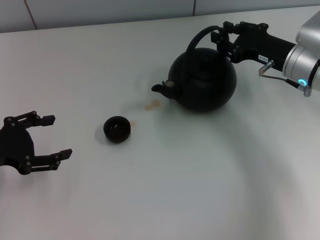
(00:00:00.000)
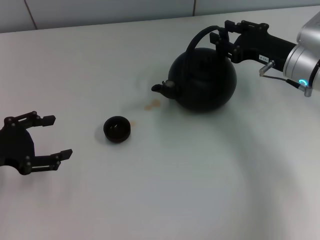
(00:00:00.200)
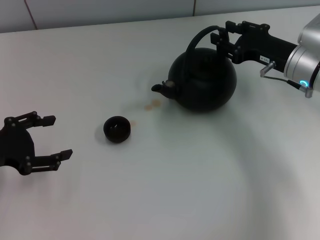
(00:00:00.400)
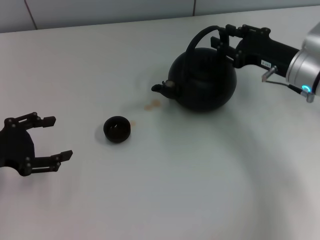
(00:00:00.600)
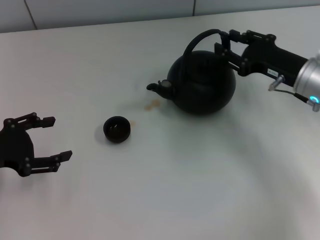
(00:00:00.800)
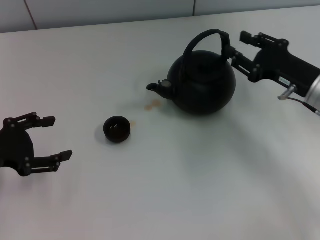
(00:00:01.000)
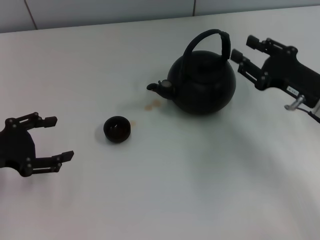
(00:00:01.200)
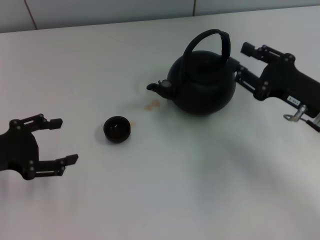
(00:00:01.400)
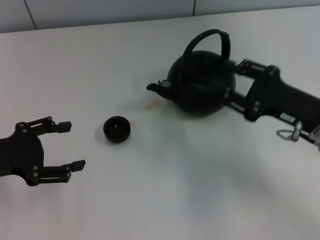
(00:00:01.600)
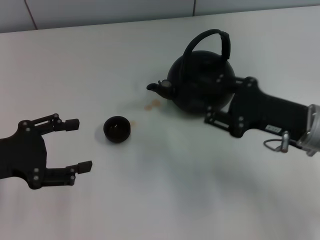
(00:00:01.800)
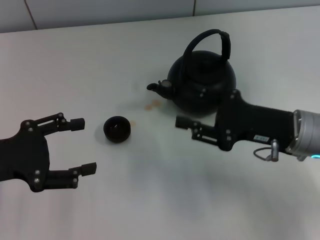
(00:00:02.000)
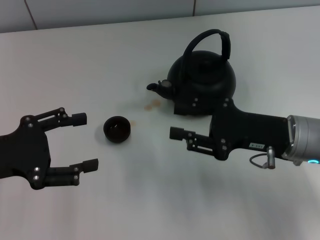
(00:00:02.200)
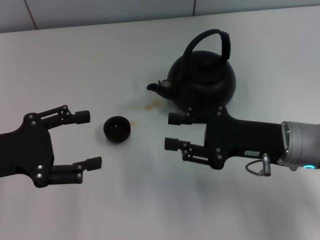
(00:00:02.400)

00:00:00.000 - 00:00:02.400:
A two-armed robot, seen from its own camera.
Task of the whole recording: Grasp the handle of the teapot with one hand and pour tea into the teacup.
00:00:00.000 - 00:00:01.200: The right gripper goes approximately 5 cm backward, and opens up.
00:00:01.200 - 00:00:02.400: The right gripper shifts about 5 cm to the left.

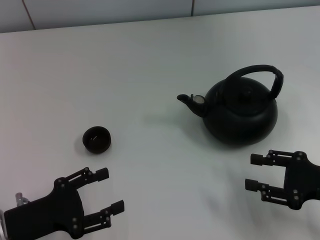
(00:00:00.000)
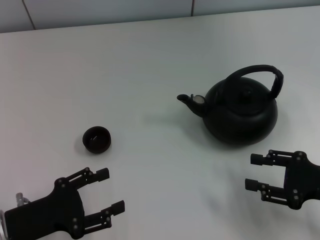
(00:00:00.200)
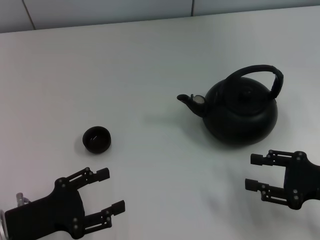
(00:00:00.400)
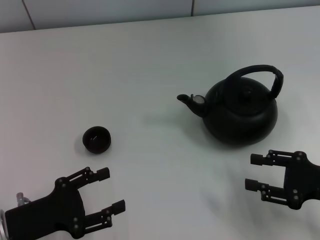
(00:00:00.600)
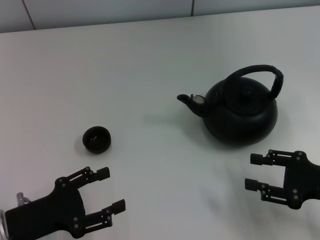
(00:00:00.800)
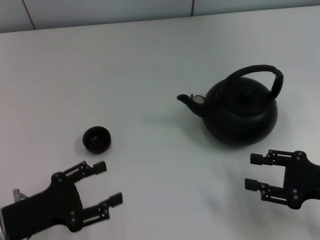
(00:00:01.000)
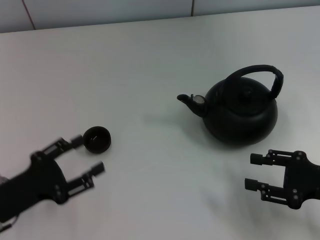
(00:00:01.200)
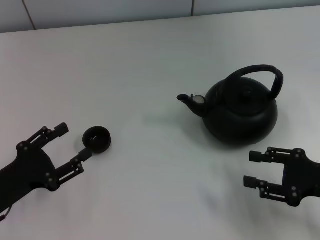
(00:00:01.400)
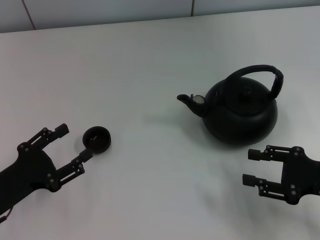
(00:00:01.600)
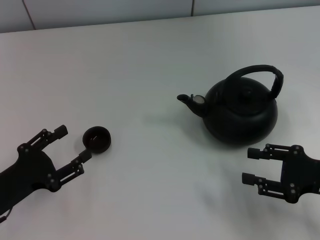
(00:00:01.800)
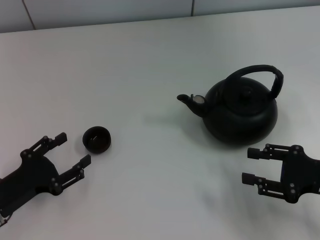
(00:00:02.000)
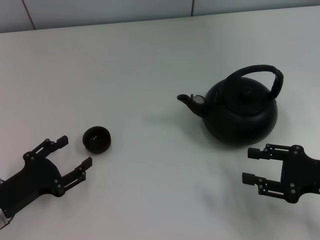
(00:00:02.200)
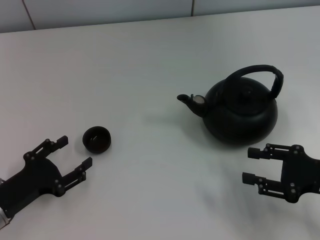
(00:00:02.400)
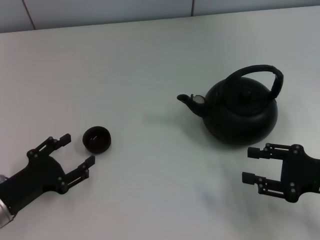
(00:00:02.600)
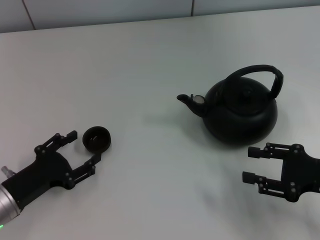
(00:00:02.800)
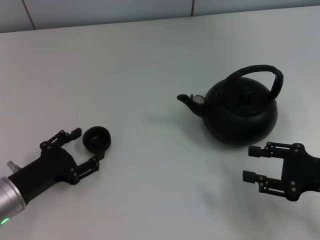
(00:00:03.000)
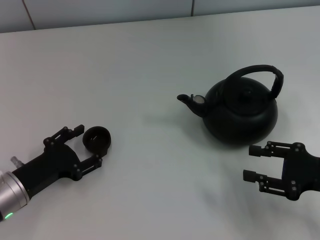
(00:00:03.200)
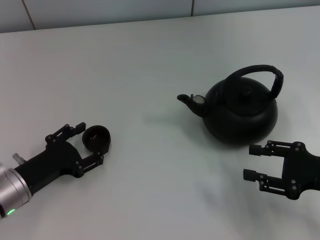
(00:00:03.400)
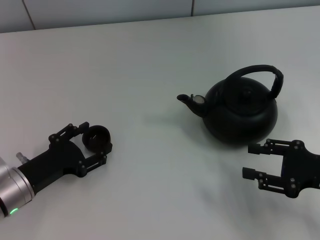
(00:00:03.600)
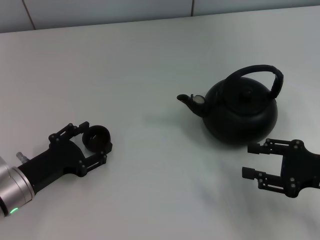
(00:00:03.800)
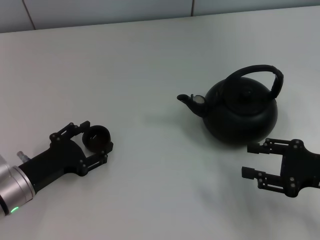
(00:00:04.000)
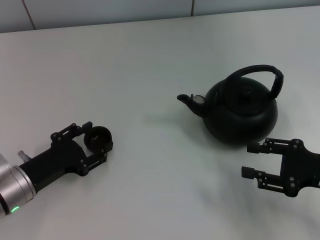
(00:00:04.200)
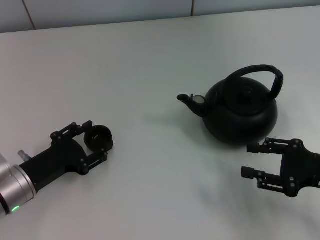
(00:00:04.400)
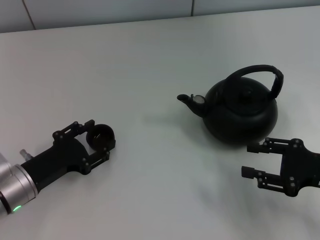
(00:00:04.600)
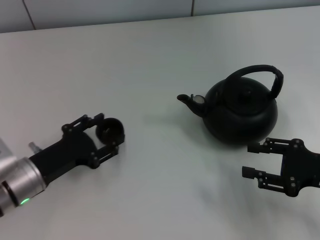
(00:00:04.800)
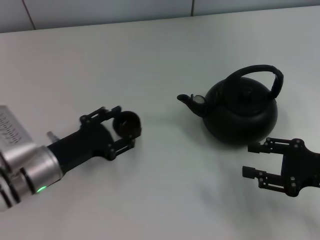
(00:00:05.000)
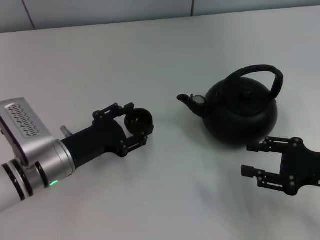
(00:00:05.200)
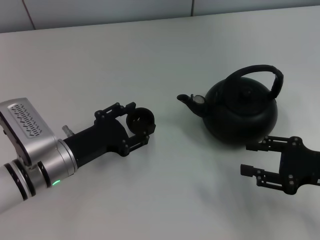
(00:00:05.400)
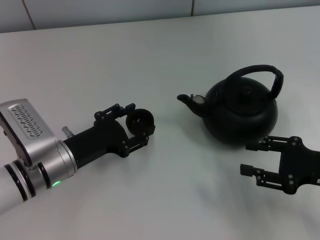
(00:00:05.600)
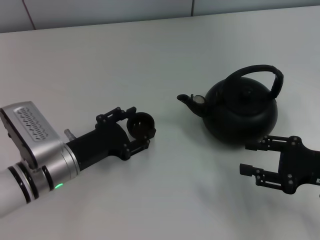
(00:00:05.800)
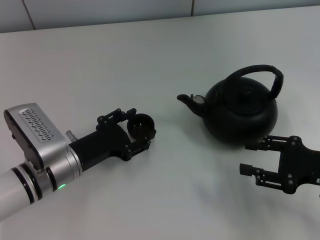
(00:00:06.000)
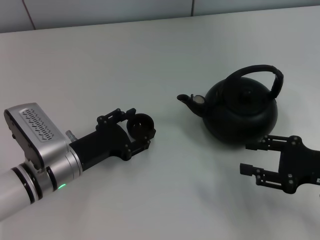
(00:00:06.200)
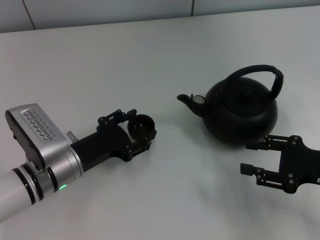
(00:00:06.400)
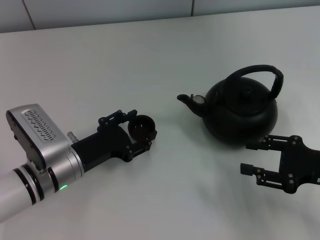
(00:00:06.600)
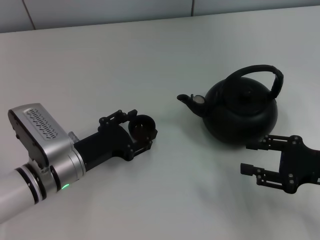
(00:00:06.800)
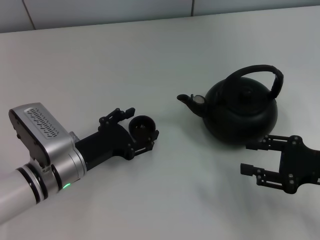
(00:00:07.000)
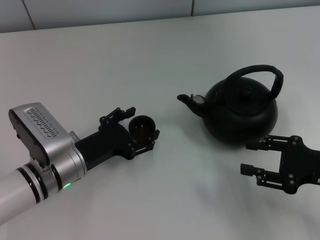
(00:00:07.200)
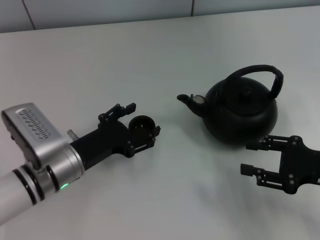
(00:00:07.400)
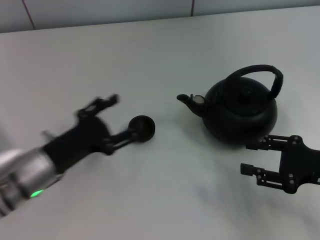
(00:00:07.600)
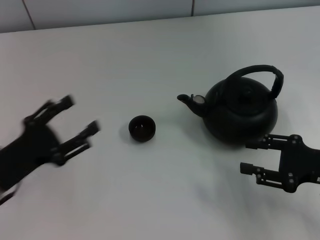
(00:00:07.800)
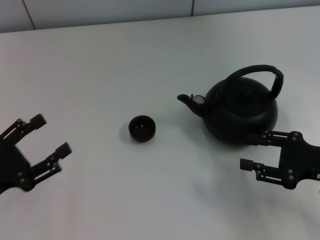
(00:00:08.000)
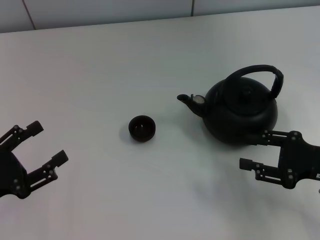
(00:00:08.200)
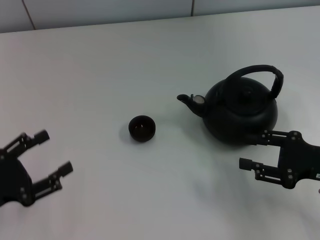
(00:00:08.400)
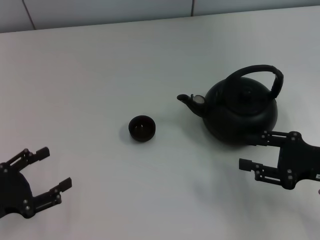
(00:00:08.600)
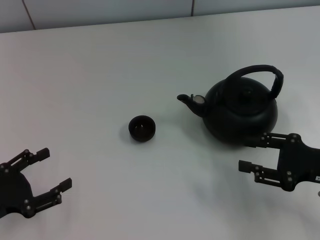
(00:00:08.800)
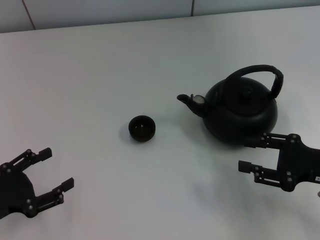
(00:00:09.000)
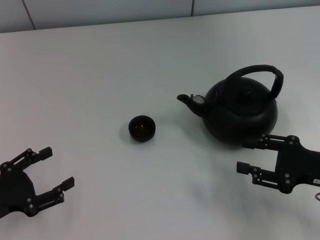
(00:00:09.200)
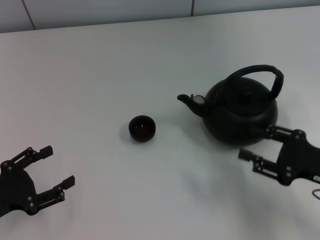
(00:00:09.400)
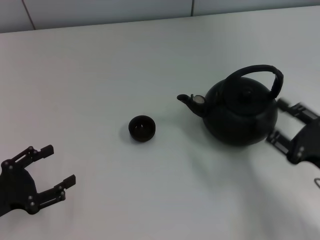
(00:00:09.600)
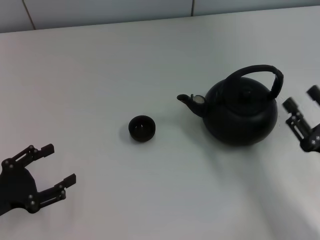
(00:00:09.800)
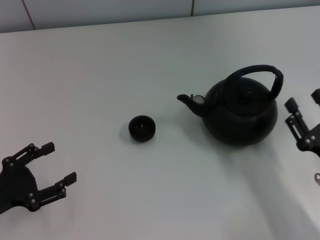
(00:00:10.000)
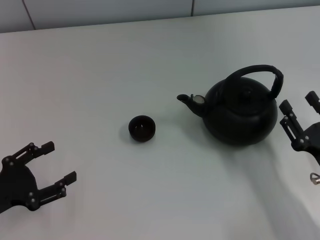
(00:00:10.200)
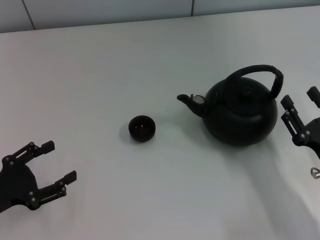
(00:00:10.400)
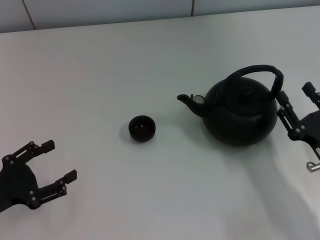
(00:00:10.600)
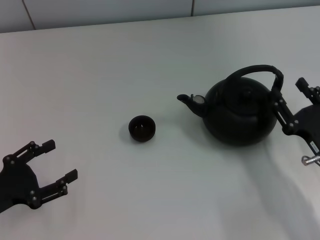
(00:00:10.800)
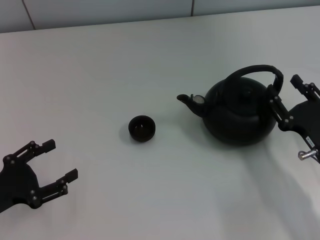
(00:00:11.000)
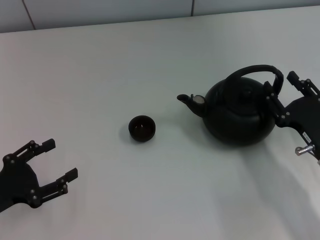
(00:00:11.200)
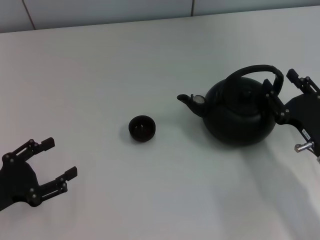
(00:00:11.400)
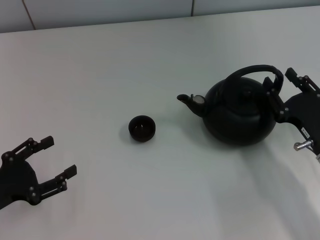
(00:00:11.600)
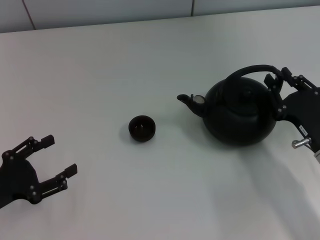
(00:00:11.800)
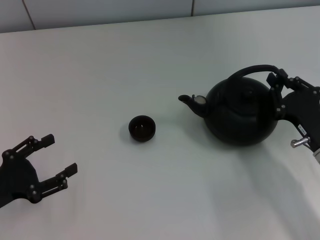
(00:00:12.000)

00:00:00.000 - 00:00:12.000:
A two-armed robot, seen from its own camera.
Task of the whole recording: Grasp the handle of the teapot with one hand and pour tea into the teacup.
Step, 00:00:00.000 - 00:00:04.800: Pick up the teacup with the left gripper.
Step, 00:00:05.200 - 00:00:07.600: Place the teacup in the center of view with the left gripper.
00:00:00.000 - 00:00:01.600: The grippers stay close to where they were, moving slightly.
00:00:01.600 - 00:00:03.000: The grippers make only small movements.
00:00:03.000 - 00:00:04.400: The left gripper closes its fingers.
00:00:04.400 - 00:00:06.000: The left gripper moves to the right, some 5 cm.
00:00:06.000 - 00:00:07.600: The left gripper opens its fingers.
00:00:07.600 - 00:00:09.000: The left gripper travels to the left and backward by about 15 cm.
00:00:09.000 - 00:00:10.400: The right gripper changes place by approximately 5 cm.
00:00:10.400 - 00:00:12.000: The right gripper moves forward, approximately 5 cm, and closes.

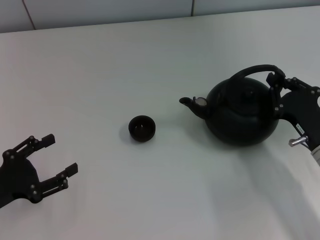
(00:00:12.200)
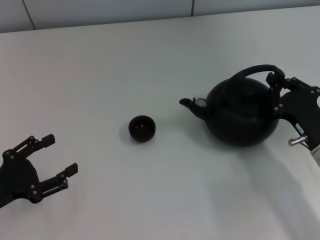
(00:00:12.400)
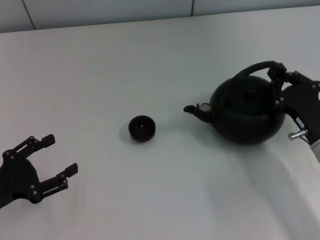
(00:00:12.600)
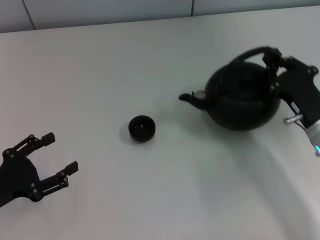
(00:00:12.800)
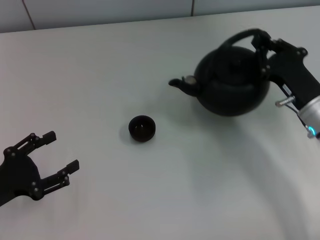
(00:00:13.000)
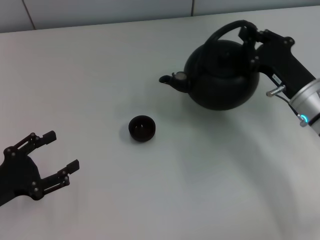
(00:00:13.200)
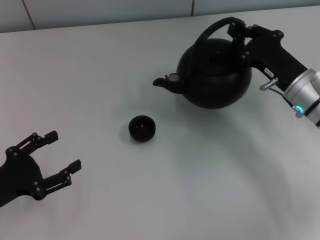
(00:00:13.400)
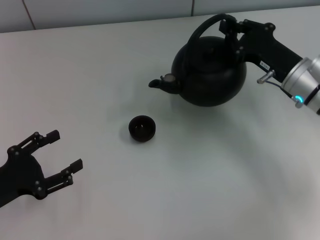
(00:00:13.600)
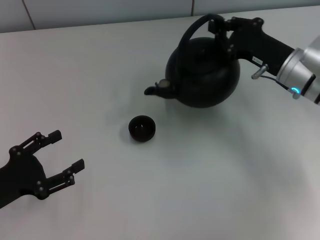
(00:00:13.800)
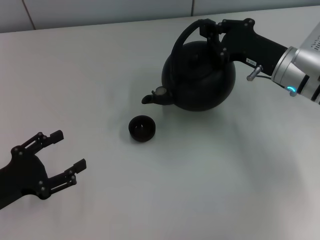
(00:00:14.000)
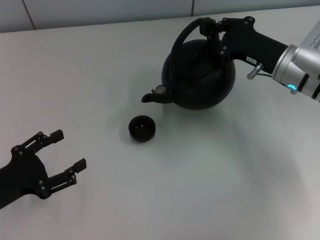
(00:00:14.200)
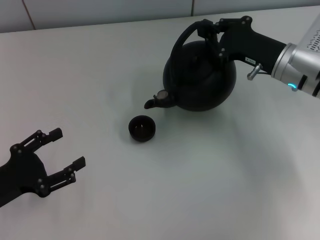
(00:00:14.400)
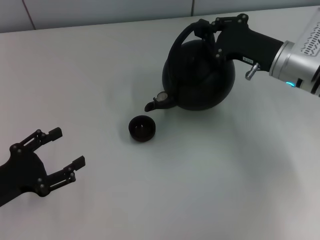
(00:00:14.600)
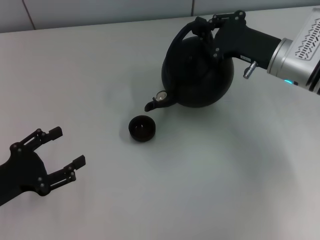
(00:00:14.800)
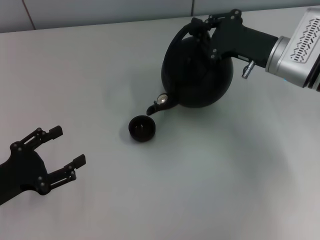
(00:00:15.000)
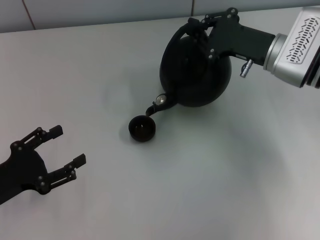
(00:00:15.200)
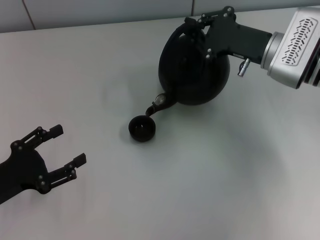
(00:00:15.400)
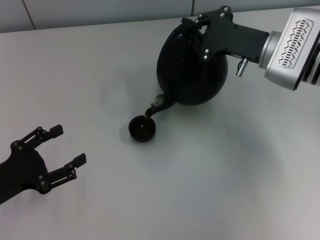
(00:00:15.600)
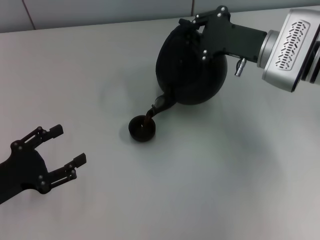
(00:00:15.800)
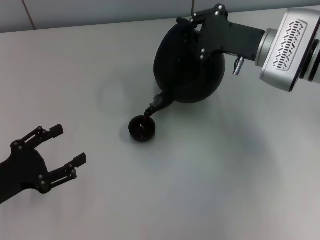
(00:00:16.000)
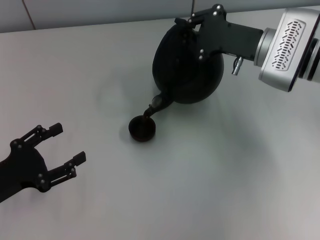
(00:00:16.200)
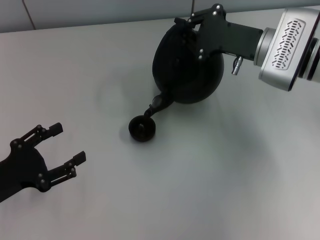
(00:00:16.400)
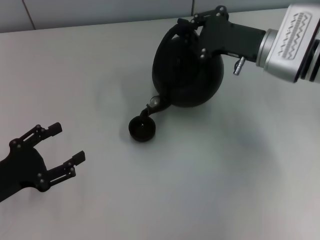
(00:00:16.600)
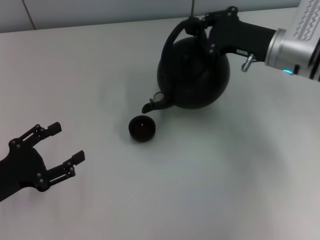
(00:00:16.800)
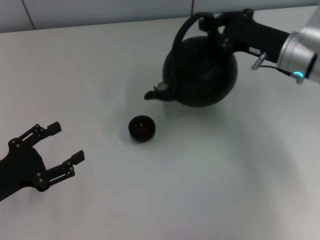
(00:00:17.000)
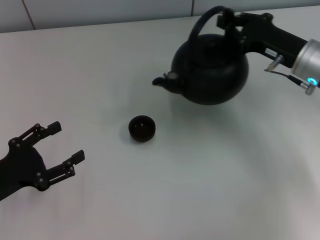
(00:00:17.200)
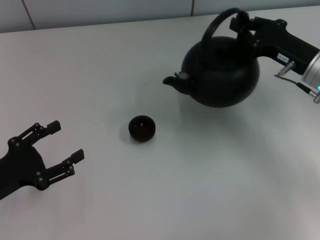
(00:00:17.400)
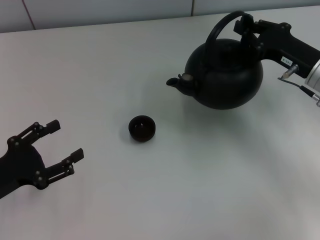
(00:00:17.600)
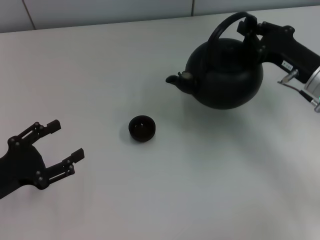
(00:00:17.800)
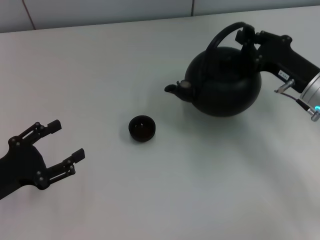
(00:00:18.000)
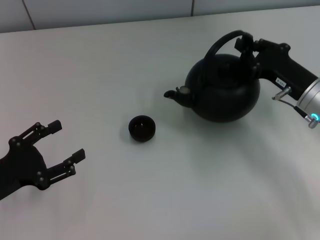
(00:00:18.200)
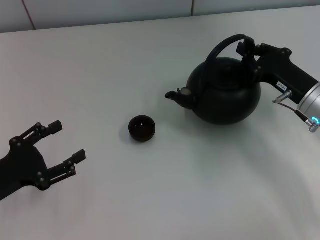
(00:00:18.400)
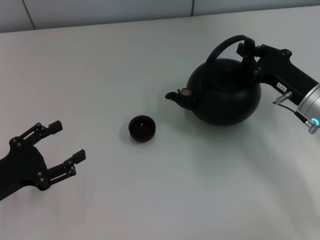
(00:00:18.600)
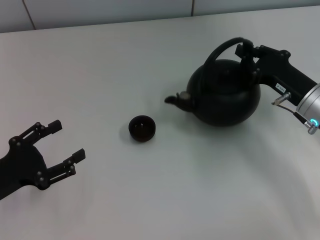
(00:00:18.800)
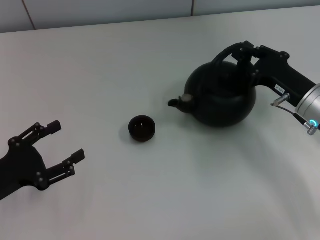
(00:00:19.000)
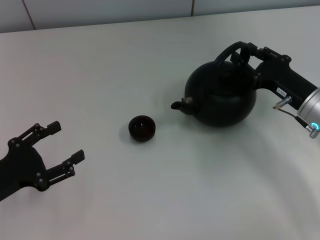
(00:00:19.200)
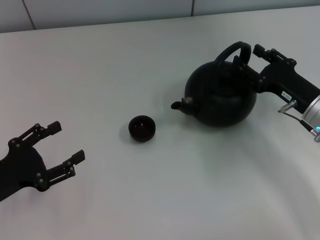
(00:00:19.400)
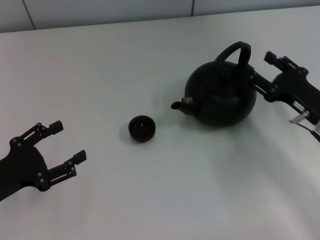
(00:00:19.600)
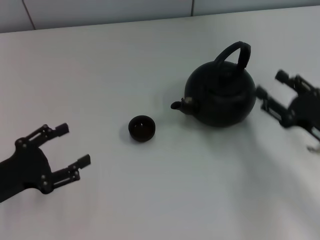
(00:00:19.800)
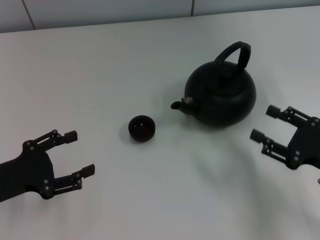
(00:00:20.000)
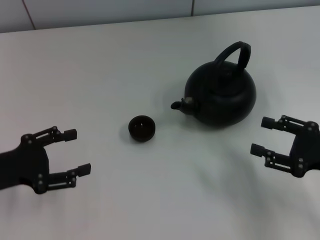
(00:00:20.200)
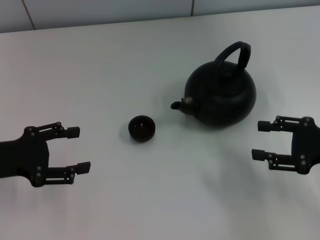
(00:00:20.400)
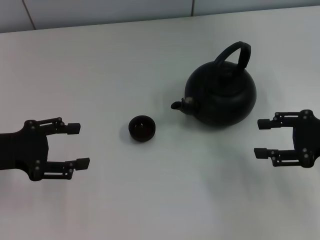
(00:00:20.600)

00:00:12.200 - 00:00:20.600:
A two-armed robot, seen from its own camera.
Task of the whole recording: Grasp the handle of the teapot with one hand and pour tea into the teacup.
Step, 00:00:17.200 - 00:00:19.600: Put down the teapot with the right gripper.
00:00:12.200 - 00:00:13.600: The right gripper is displaced forward and upward by some 10 cm.
00:00:15.000 - 00:00:16.400: The grippers move only a little.
00:00:16.400 - 00:00:17.800: The right gripper heads to the right and backward, covering about 10 cm.
00:00:17.800 - 00:00:19.200: There are only small adjustments of the grippers.
00:00:19.200 - 00:00:20.600: The left gripper goes some 10 cm forward and upward, while the right gripper heads upward, to the right and backward, covering roughly 10 cm, and opens its fingers.
